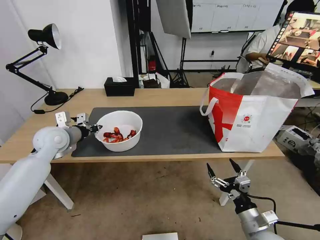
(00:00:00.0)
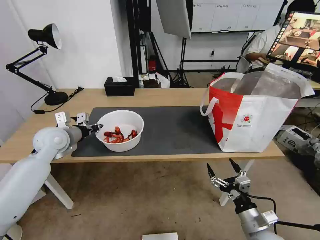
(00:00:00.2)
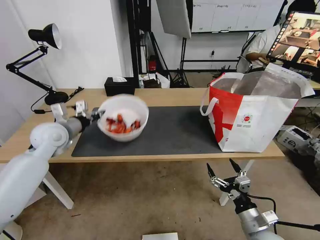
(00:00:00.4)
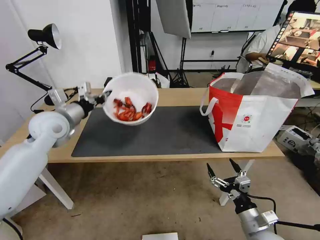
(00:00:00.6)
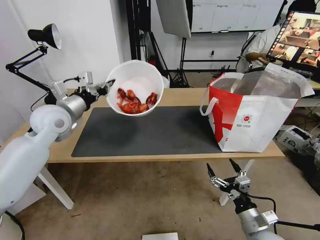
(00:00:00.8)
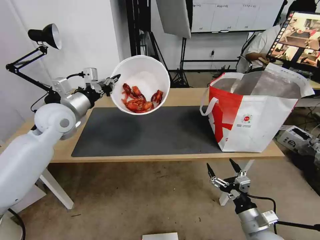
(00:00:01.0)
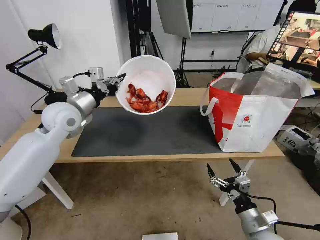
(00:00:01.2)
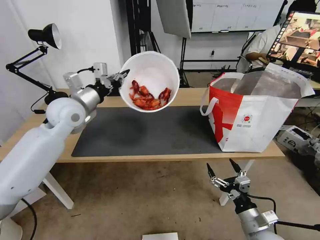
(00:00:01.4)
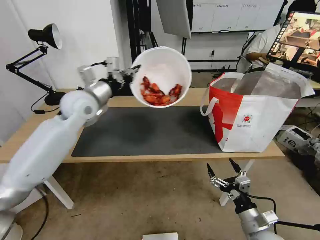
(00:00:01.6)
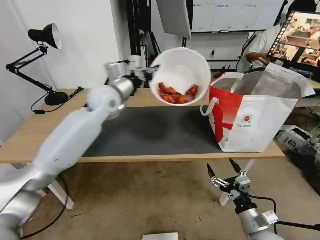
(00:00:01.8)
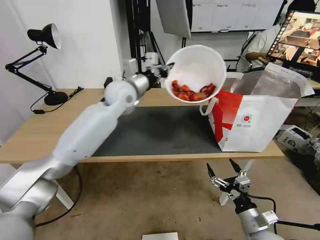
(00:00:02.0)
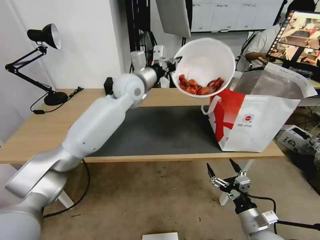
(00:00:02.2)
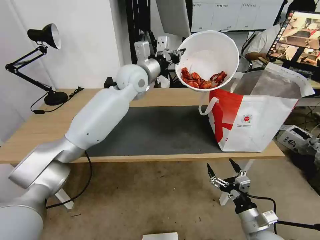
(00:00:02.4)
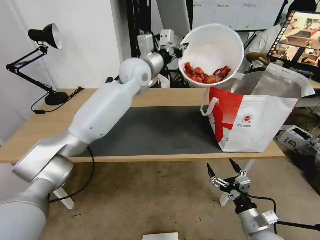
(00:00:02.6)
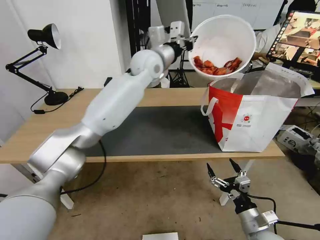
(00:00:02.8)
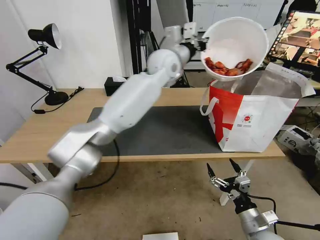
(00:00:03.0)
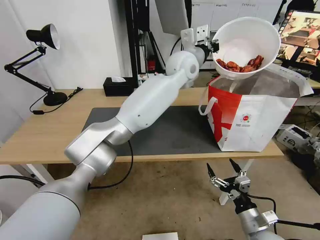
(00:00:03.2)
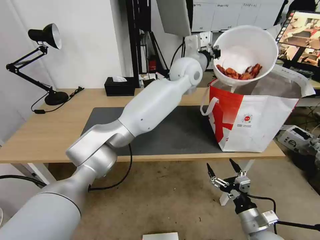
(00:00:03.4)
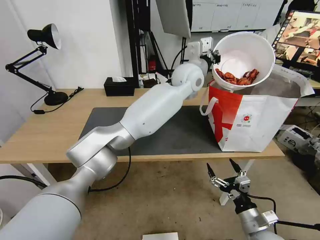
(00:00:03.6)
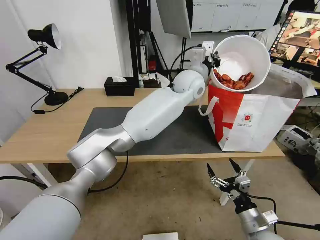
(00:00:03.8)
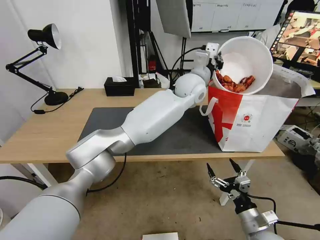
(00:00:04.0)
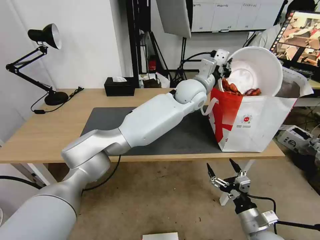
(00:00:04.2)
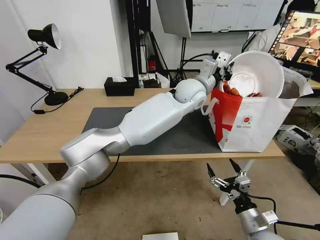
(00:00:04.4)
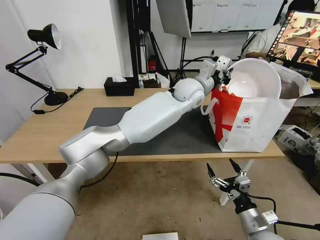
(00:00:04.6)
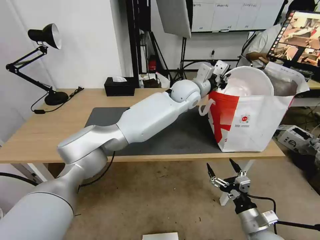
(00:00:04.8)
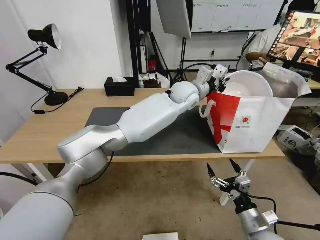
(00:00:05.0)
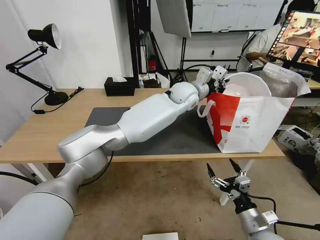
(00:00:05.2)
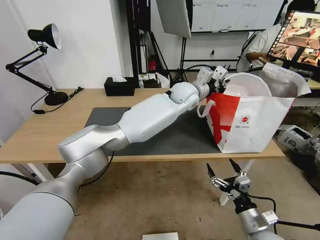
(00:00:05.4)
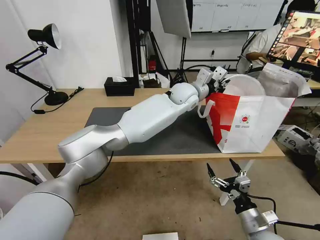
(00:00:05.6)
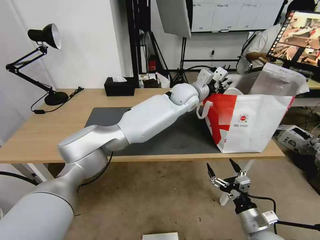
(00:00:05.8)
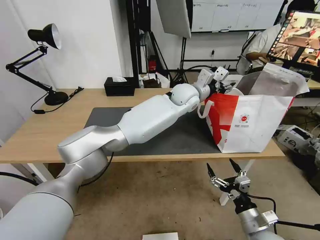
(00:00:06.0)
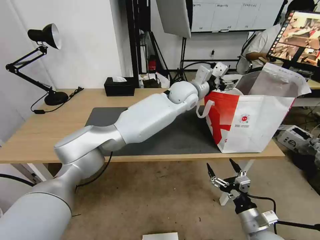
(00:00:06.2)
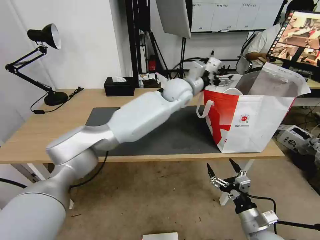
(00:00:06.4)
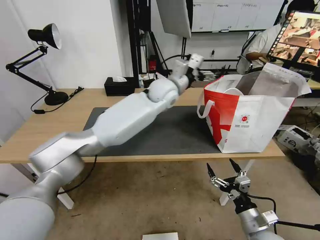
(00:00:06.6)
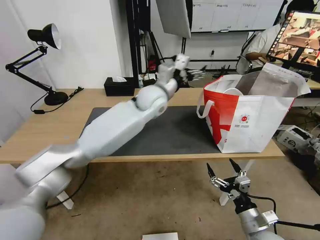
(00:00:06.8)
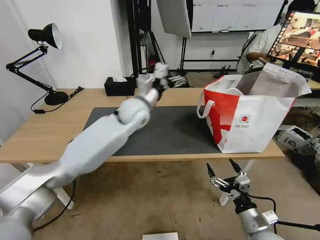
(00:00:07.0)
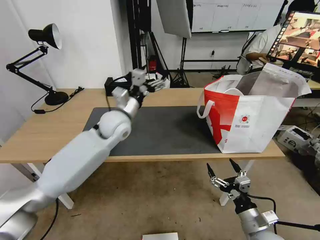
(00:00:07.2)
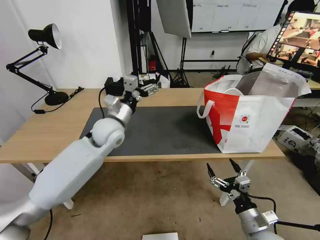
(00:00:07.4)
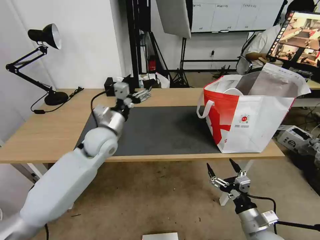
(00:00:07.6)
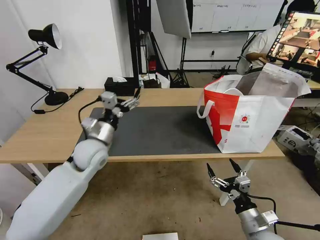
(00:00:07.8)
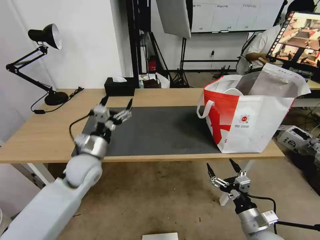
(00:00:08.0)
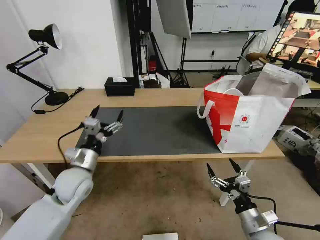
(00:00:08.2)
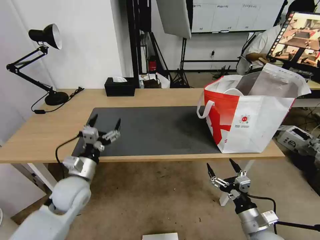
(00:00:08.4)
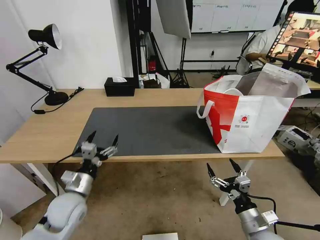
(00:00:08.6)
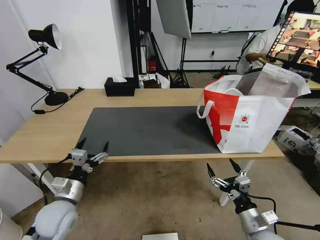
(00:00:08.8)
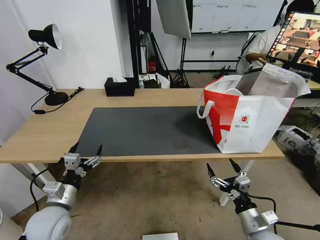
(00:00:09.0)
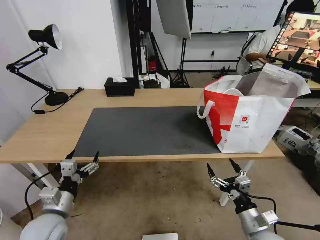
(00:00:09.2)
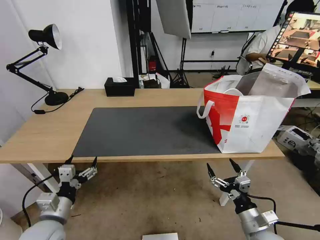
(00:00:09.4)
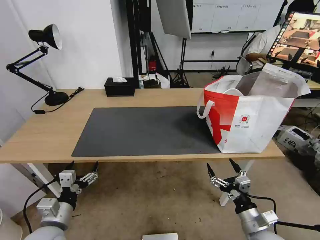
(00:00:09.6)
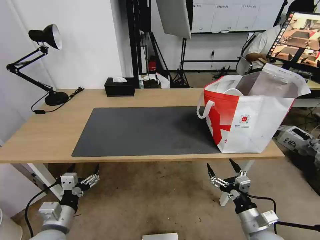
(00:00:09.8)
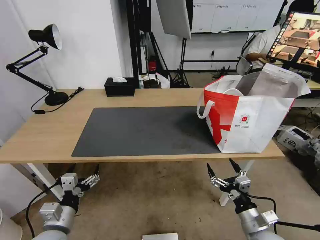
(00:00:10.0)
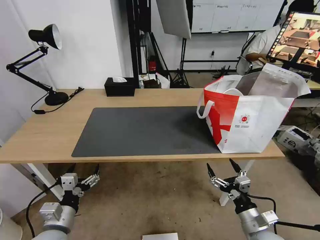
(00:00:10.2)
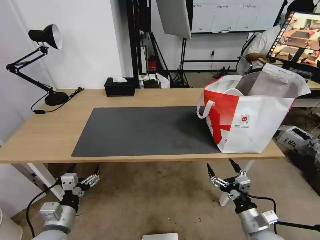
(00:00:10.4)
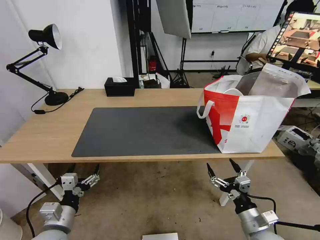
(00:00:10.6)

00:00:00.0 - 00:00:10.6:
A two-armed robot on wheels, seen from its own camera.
Task of the whole recording: Pick up the trash from the table and place it into the takeout bag.
00:00:00.0 - 00:00:01.6: The left gripper heads to the right and upward, covering roughly 15 cm.
00:00:01.6 - 00:00:03.0: The left gripper is displaced to the right by some 25 cm.
00:00:03.0 - 00:00:04.6: The left gripper travels downward and to the right by roughly 10 cm.
00:00:04.6 - 00:00:06.0: The left gripper opens its fingers.
00:00:06.0 - 00:00:07.6: The left gripper is displaced to the left and backward by about 30 cm, and opens.
00:00:07.6 - 00:00:09.0: The left gripper moves backward, downward and to the left, approximately 25 cm.
00:00:09.0 - 00:00:10.6: The left gripper travels backward by some 5 cm.

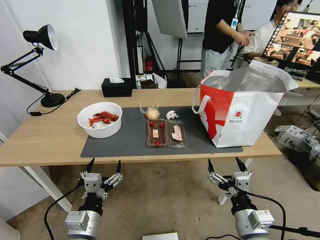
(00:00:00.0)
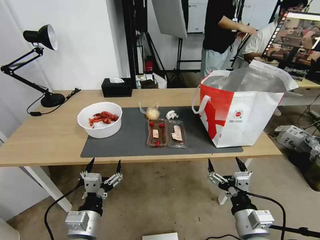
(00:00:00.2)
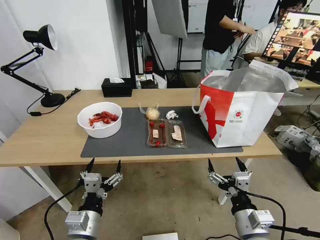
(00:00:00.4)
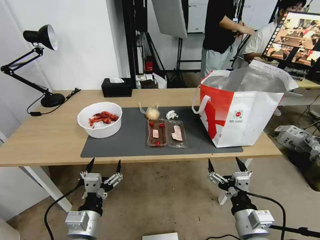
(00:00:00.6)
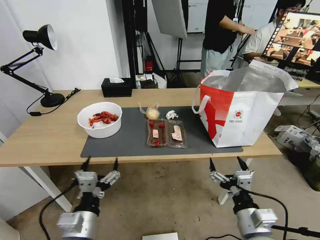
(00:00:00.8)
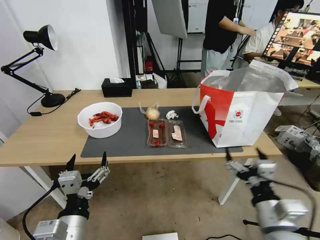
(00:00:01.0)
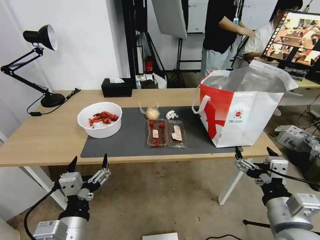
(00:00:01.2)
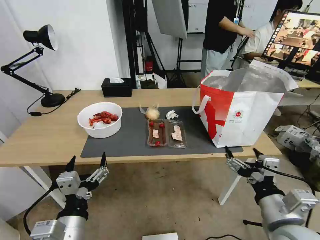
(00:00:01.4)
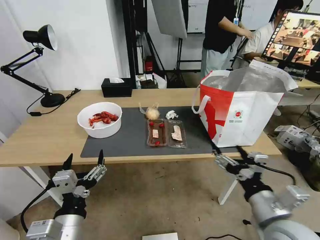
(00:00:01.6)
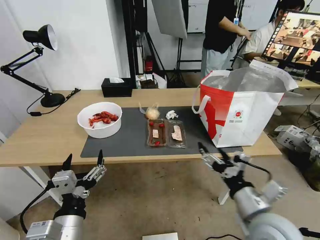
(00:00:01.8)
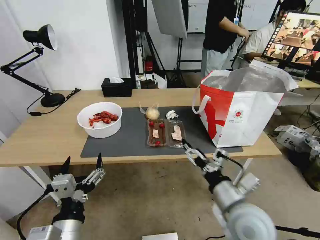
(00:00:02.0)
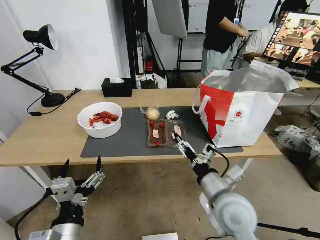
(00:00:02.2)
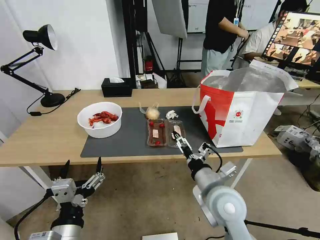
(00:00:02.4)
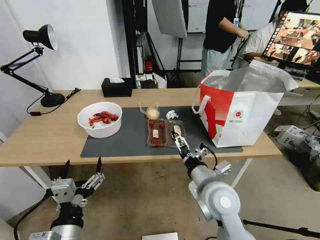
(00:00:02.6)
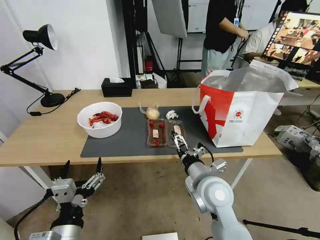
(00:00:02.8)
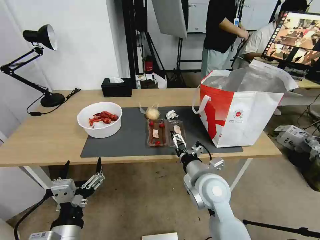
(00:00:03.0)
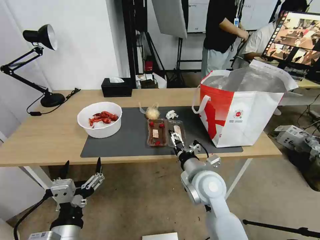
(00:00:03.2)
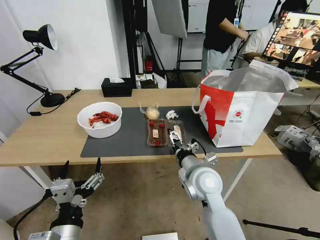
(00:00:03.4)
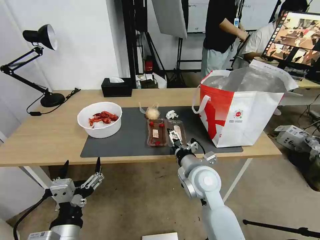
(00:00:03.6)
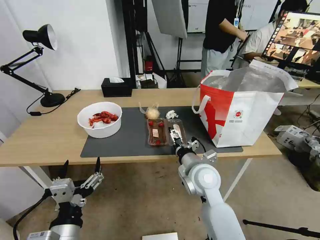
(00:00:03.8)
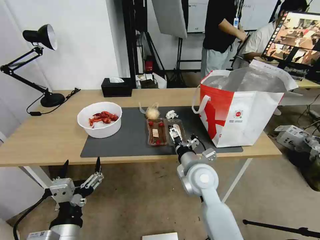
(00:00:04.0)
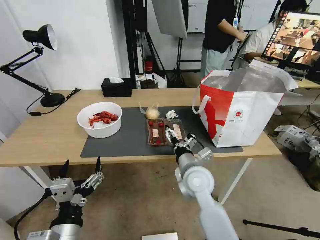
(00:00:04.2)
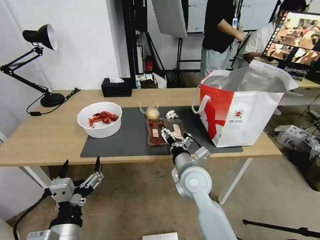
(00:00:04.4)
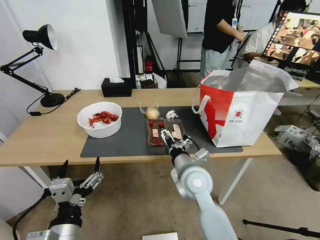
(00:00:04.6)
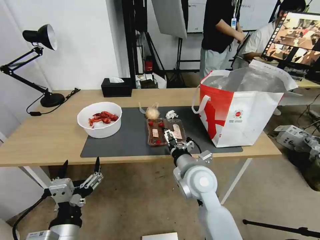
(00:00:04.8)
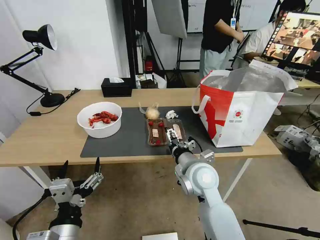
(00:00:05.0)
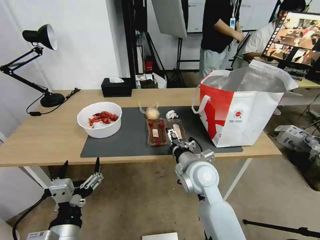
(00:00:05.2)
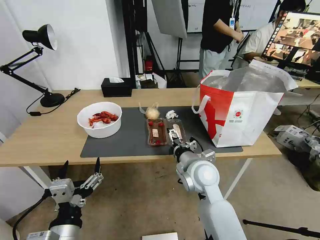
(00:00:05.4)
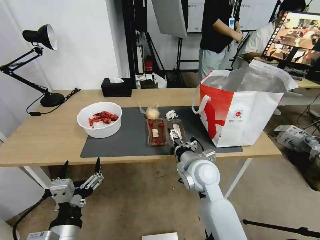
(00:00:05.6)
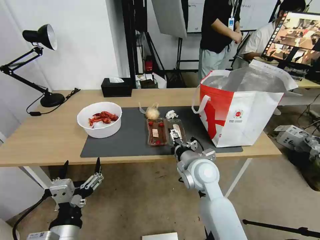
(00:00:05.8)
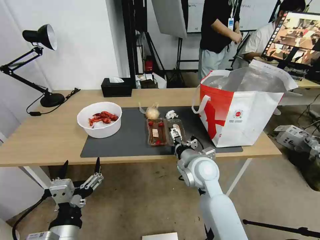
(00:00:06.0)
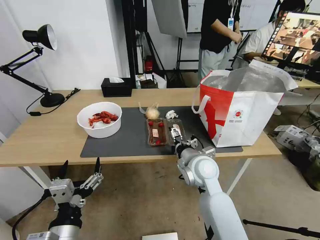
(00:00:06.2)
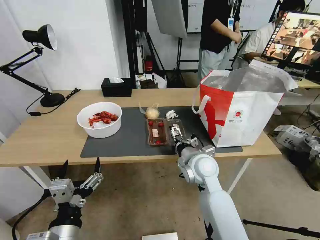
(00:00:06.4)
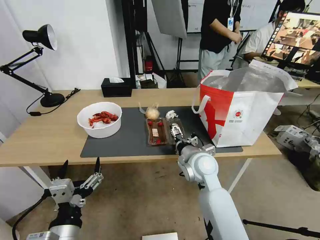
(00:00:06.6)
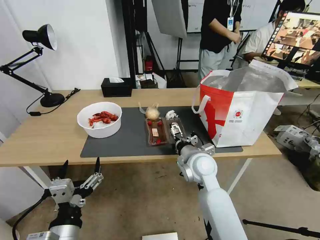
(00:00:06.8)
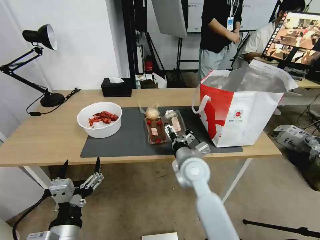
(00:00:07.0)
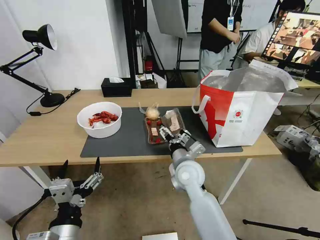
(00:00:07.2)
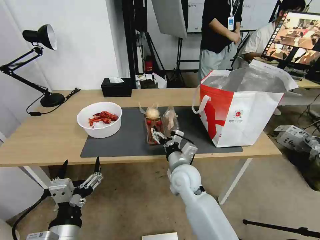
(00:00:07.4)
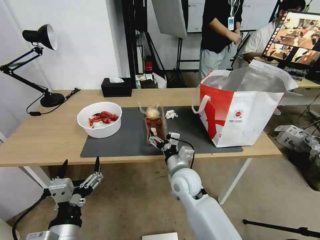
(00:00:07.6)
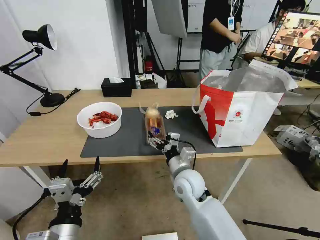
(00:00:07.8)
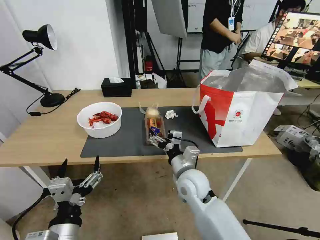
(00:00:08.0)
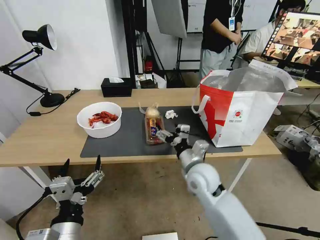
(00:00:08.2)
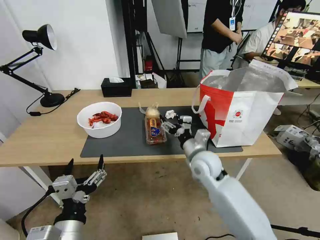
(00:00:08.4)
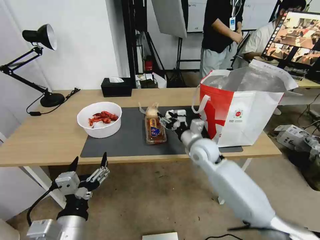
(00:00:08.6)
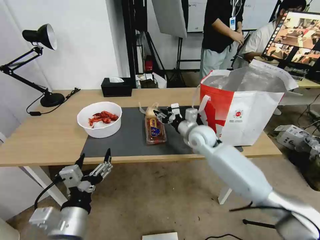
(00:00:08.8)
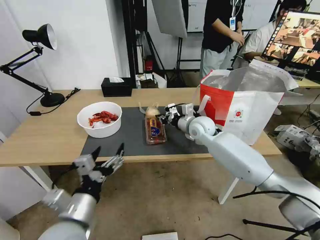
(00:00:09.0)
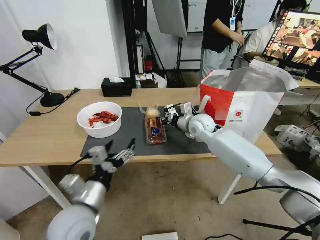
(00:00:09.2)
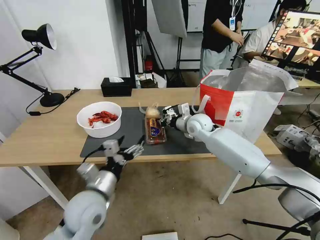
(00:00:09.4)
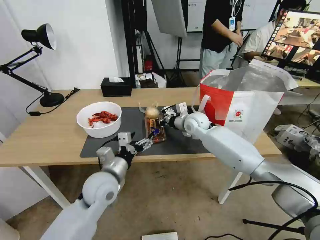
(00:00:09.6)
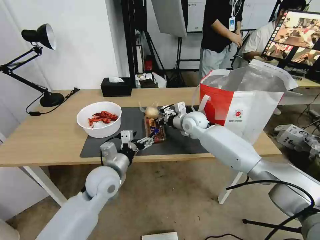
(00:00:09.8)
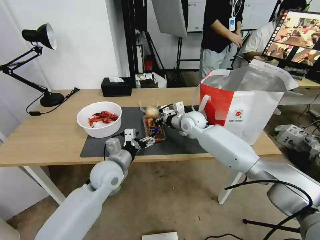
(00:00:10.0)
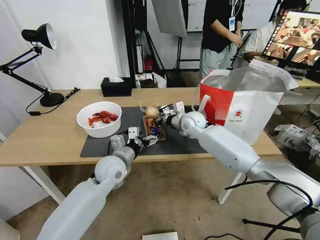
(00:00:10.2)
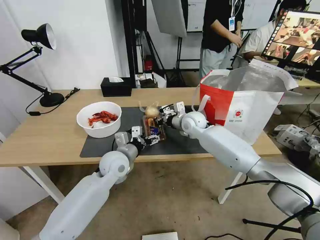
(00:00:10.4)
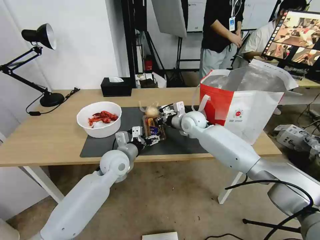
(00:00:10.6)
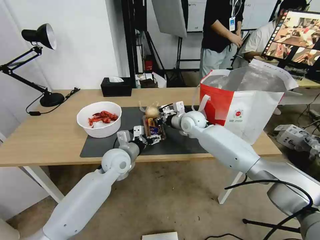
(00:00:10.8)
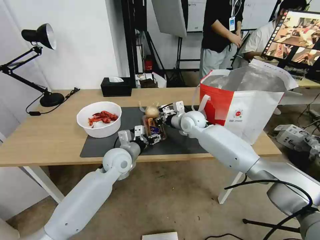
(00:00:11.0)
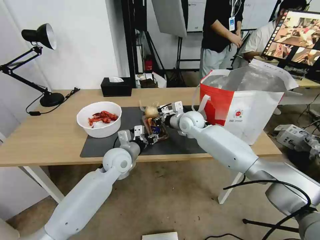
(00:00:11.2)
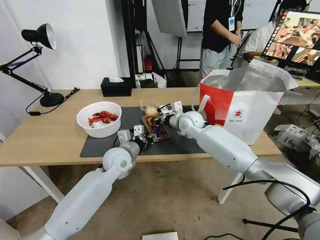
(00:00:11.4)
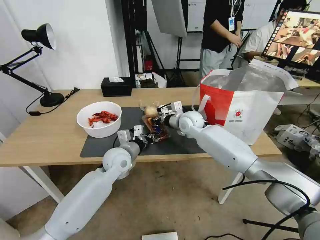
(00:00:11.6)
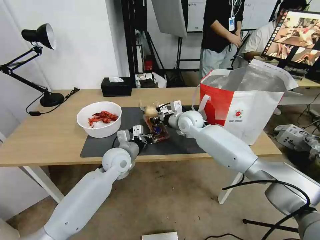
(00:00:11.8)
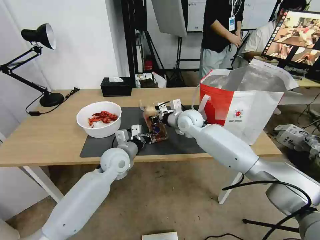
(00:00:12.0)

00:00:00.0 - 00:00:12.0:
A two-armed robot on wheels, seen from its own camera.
Task of the whole recording: Pick up the trash from the table and place it into the takeout bag.
00:00:01.6 - 00:00:03.0: The right gripper shifts some 20 cm forward and to the left.
00:00:03.0 - 00:00:04.4: The right gripper ends up about 5 cm from where it was.
00:00:06.0 - 00:00:07.6: The right gripper shifts approximately 5 cm downward.
00:00:07.6 - 00:00:09.0: The right gripper travels forward, to the right and upward by approximately 20 cm, and closes, while the left gripper moves forward, roughly 5 cm.
00:00:09.0 - 00:00:10.4: The left gripper goes some 25 cm forward.
00:00:10.4 - 00:00:12.0: The left gripper closes its fingers.
